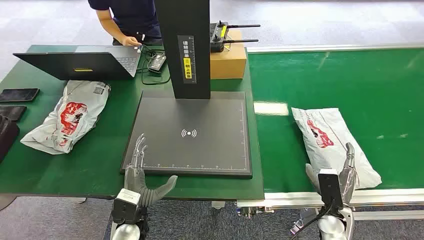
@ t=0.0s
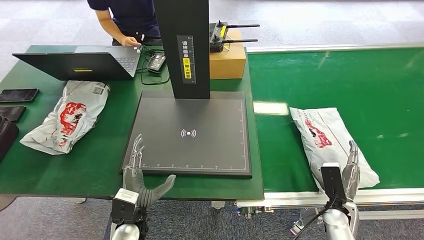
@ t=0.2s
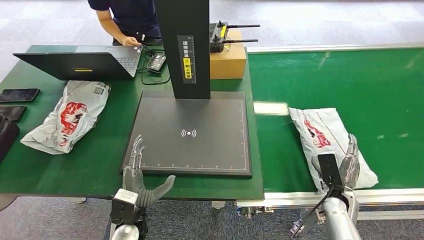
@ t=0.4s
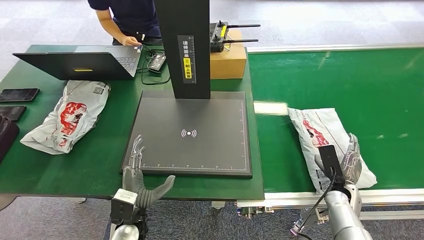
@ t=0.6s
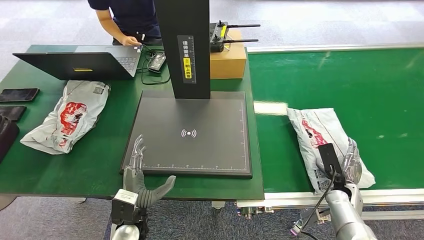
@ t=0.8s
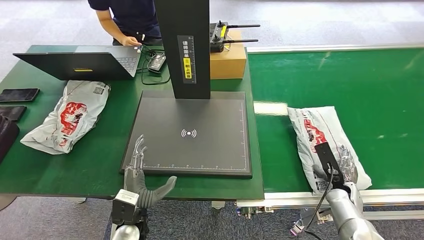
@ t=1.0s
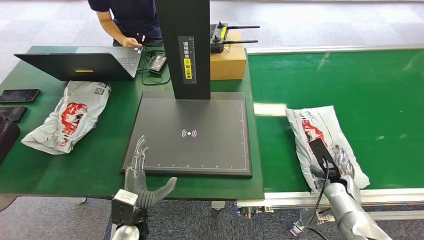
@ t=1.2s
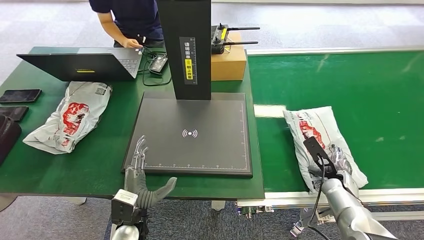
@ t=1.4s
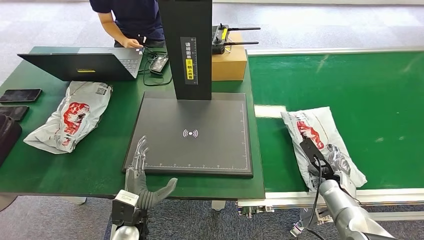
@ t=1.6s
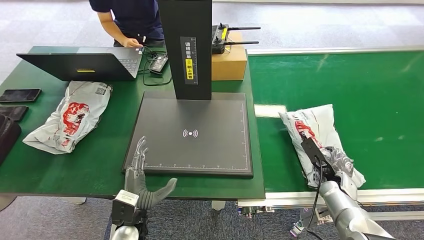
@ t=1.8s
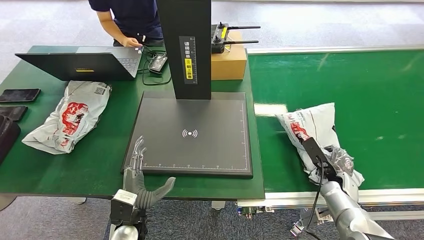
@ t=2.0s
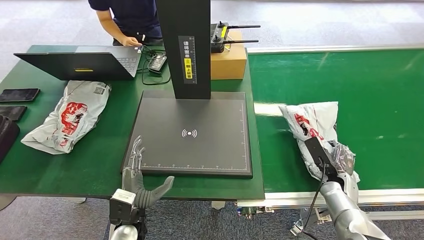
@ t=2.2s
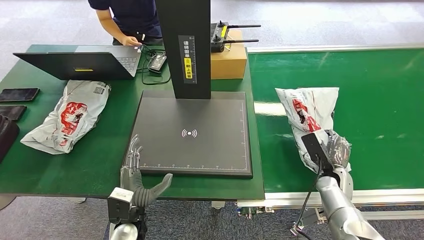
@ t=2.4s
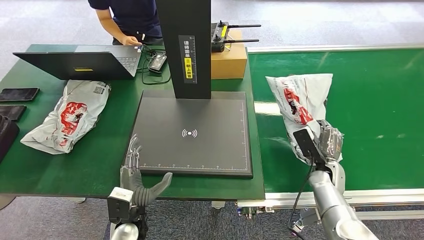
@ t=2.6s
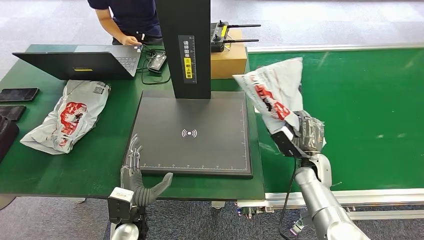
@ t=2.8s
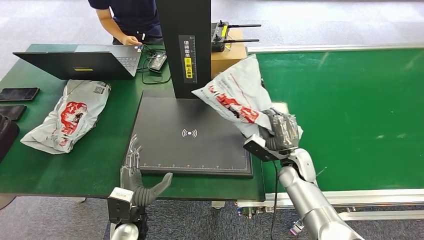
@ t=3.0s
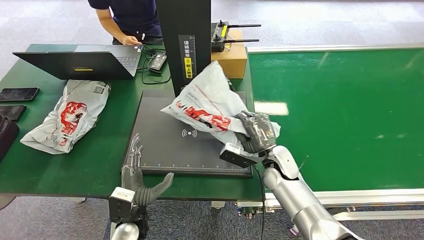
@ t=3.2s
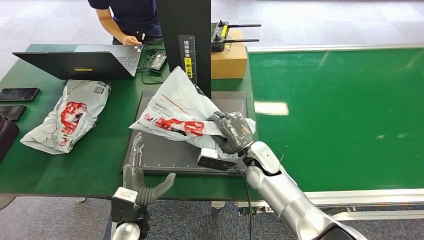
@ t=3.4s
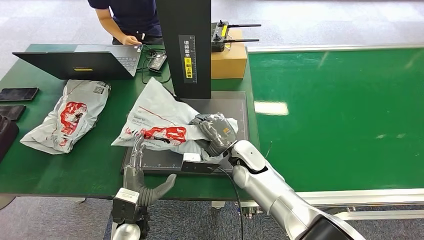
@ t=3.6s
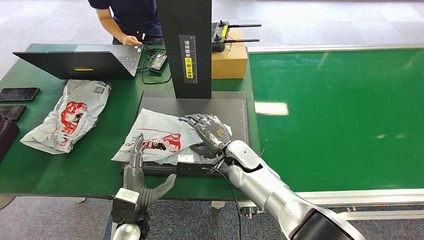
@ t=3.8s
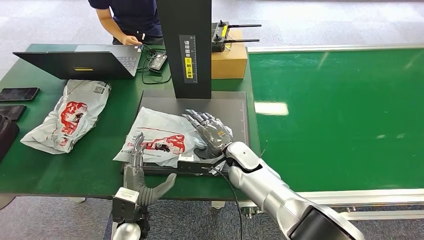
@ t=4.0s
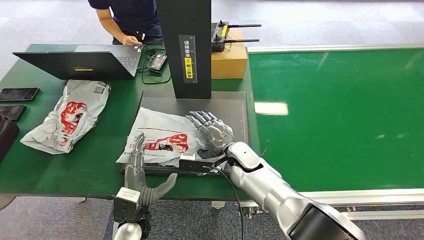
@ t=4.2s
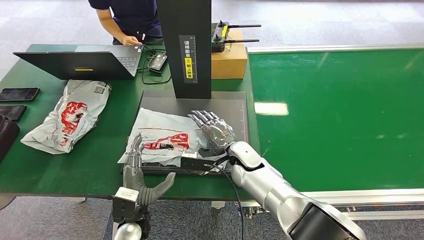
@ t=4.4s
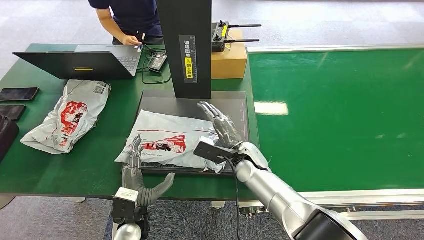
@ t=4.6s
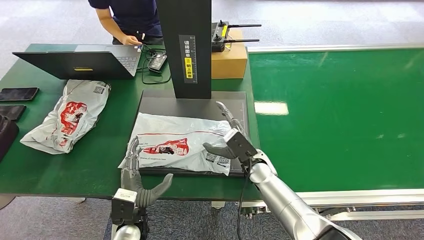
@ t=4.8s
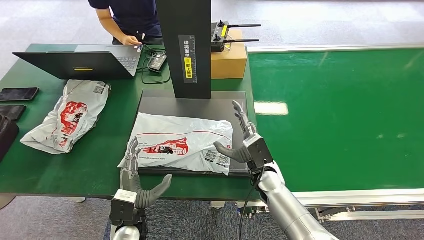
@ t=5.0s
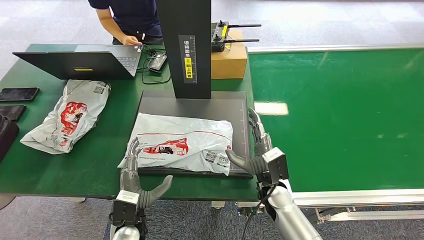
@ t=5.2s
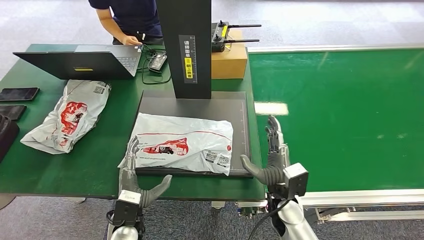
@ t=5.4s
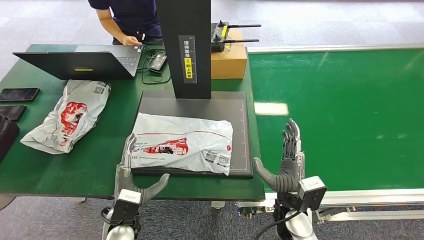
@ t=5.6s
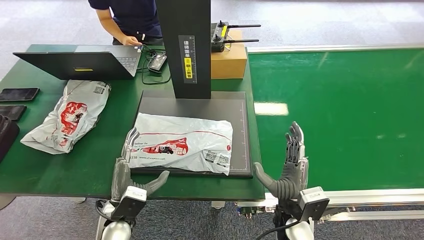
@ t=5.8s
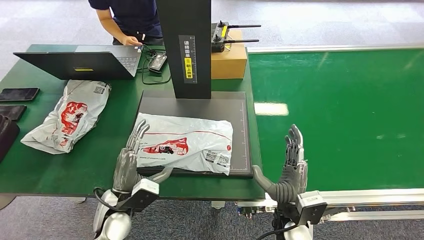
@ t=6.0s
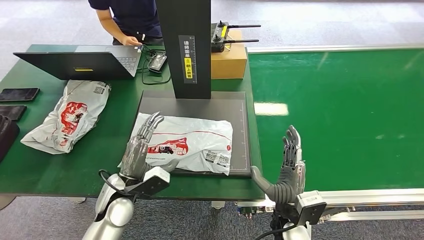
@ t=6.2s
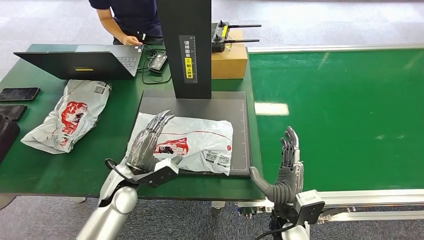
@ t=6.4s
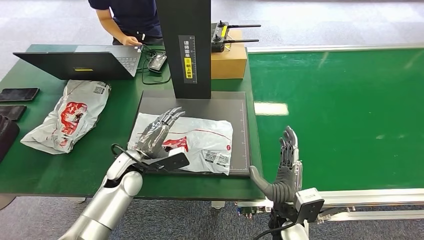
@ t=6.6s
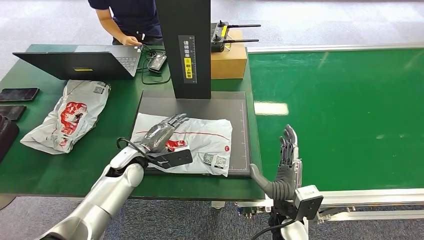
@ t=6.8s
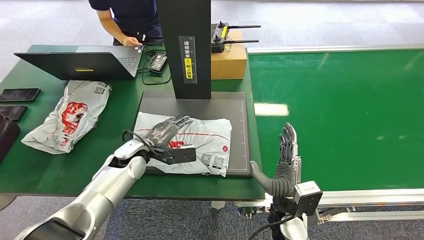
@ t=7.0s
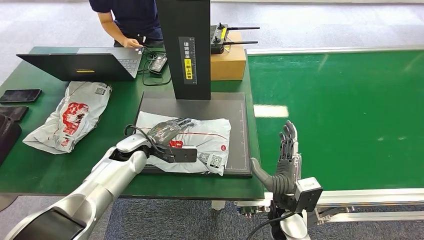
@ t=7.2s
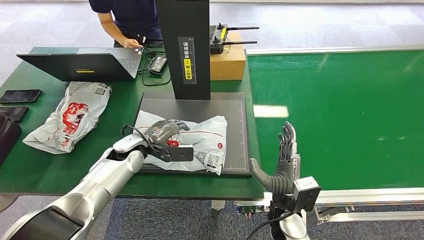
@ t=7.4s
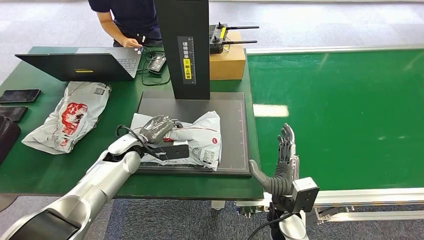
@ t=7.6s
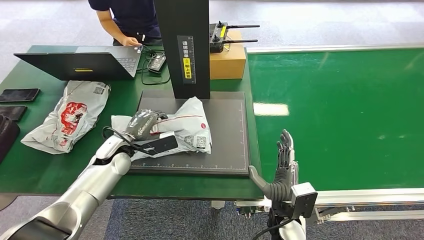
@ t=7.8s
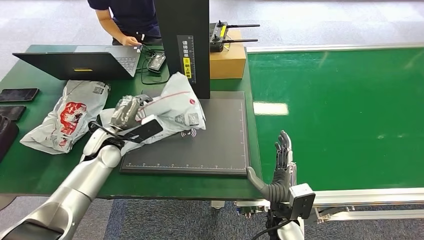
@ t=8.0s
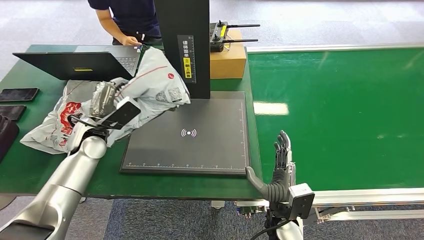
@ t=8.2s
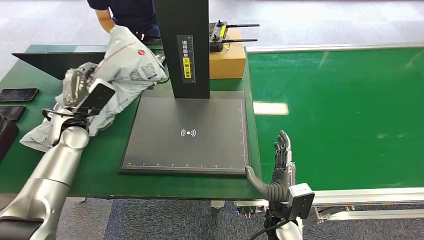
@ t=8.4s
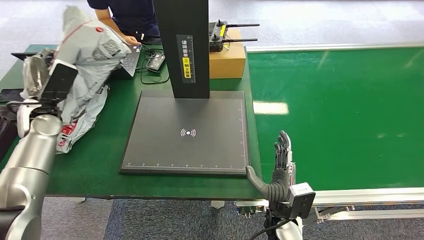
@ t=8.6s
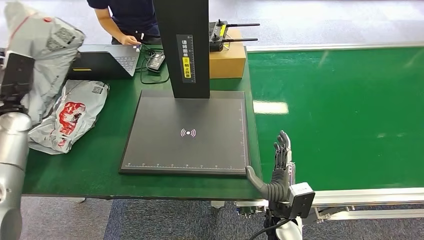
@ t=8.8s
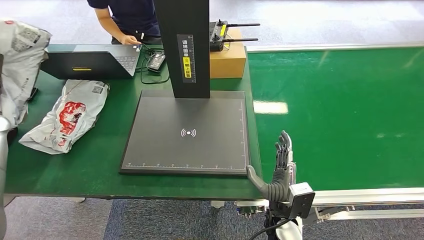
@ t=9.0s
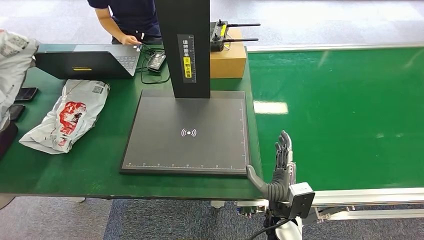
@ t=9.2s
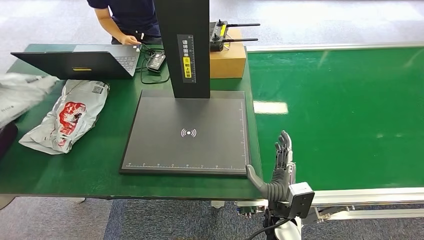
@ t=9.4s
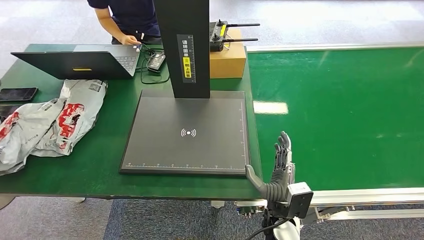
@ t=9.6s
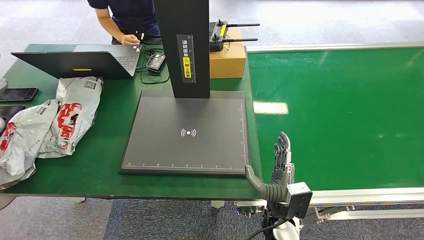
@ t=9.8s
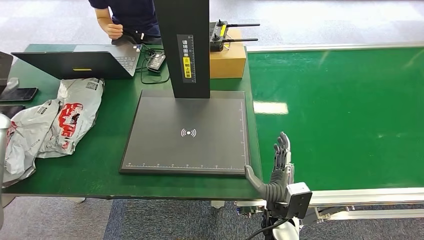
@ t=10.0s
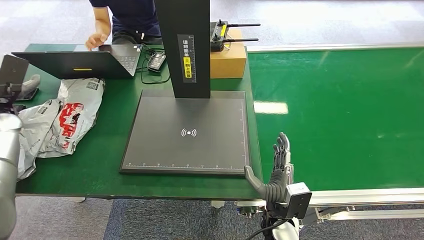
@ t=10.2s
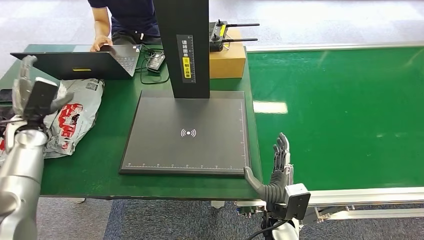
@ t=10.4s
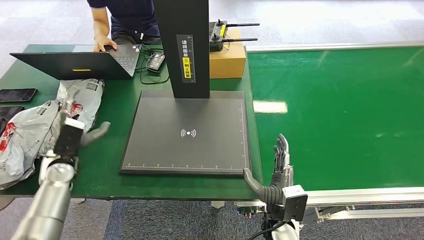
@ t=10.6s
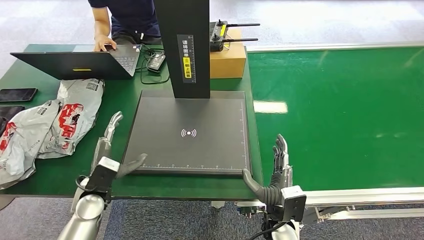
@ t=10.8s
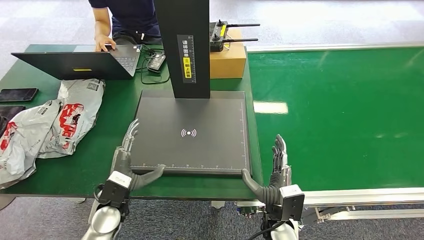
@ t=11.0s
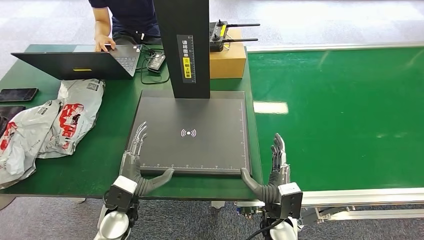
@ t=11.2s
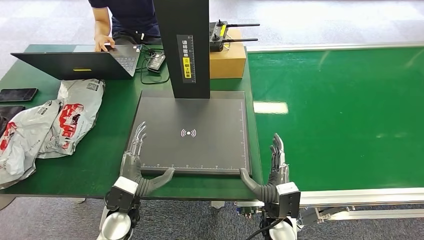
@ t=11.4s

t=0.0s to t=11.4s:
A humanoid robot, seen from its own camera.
Step, t=0.0s to t=2.6s: Pick up the package from the conveyor belt.
Step, t=3.0s to t=5.2s: Place the package onto the inbound machine.
Step, t=5.6s to t=8.2s: Pick up the package from the inbound machine.
Step, t=8.6s to t=11.4s: Place the package into the parcel locker.
t=2.8s to t=4.2s: The right hand moves to the left, approximately 20 cm.
t=4.2s to t=5.6s: The right hand is displaced backward and to the right by approximately 15 cm.
t=8.6s to t=10.0s: The left hand is displaced to the left by roughly 10 cm.
t=10.0s to t=11.4s: The left hand heads to the right, backward and downward, covering about 40 cm.
